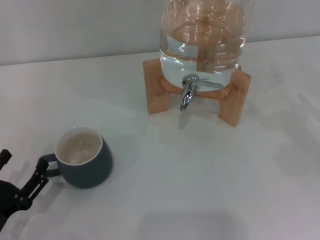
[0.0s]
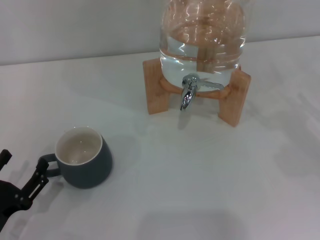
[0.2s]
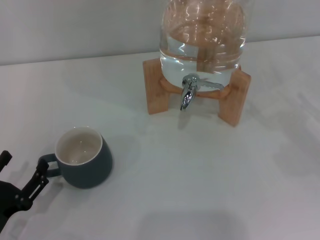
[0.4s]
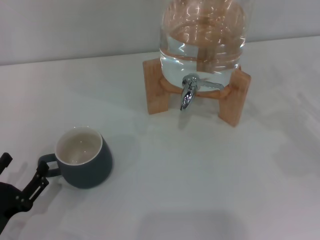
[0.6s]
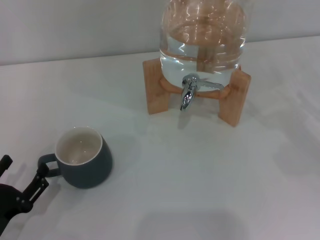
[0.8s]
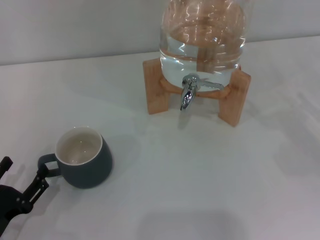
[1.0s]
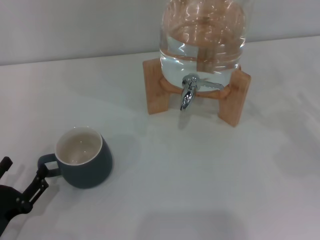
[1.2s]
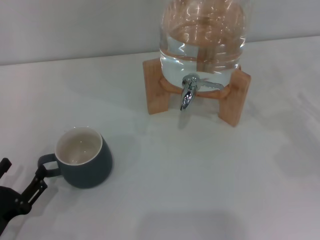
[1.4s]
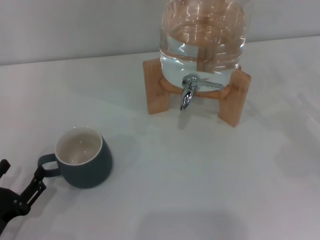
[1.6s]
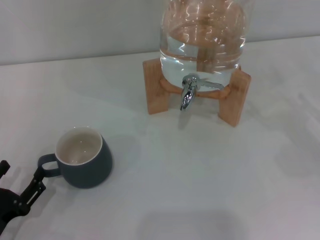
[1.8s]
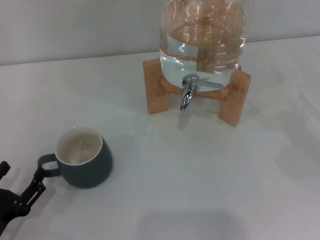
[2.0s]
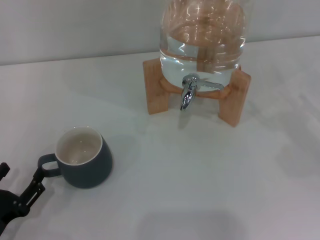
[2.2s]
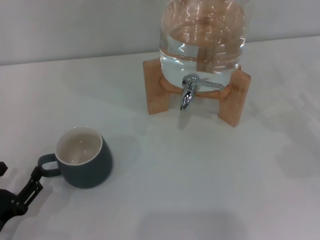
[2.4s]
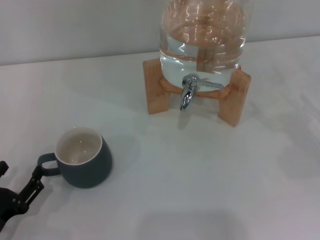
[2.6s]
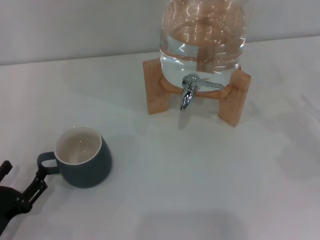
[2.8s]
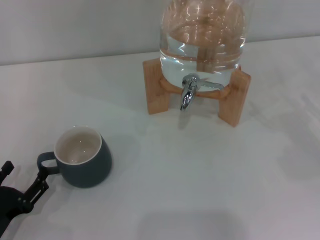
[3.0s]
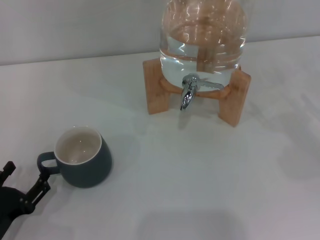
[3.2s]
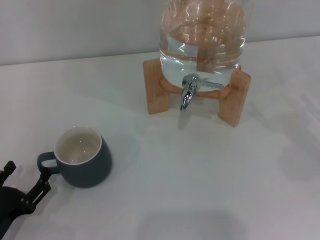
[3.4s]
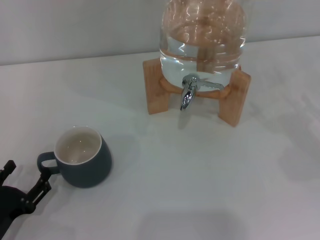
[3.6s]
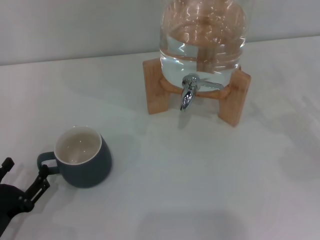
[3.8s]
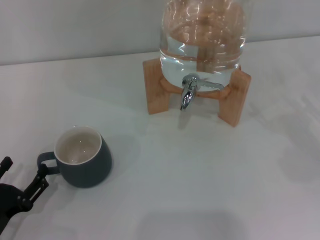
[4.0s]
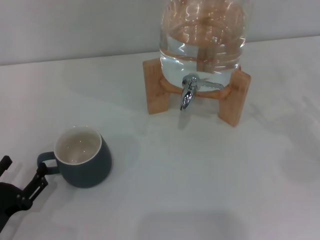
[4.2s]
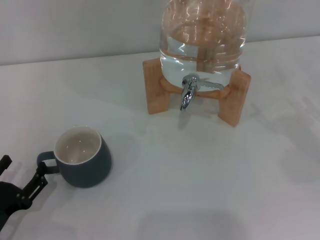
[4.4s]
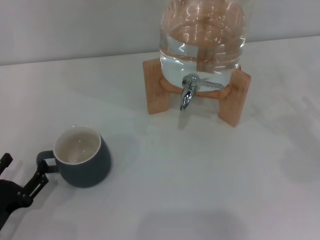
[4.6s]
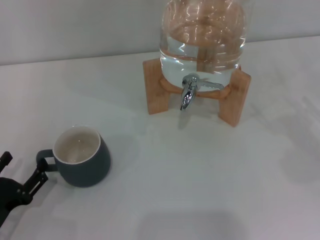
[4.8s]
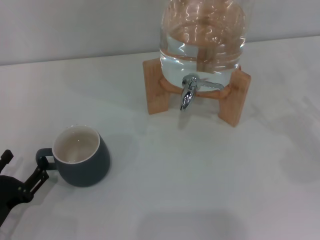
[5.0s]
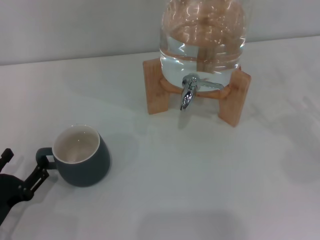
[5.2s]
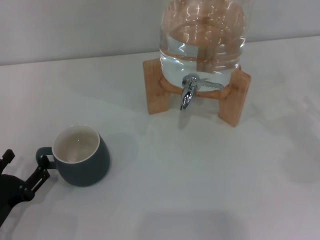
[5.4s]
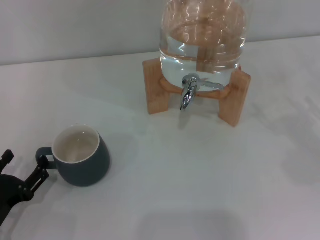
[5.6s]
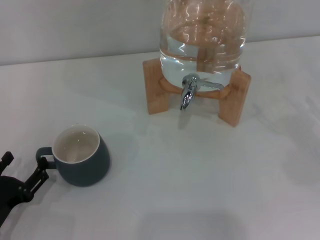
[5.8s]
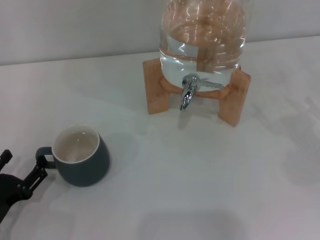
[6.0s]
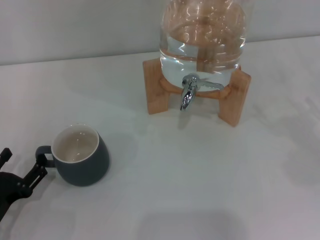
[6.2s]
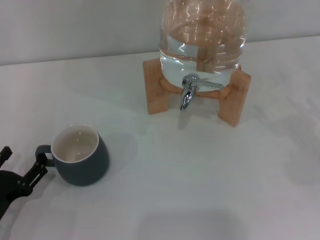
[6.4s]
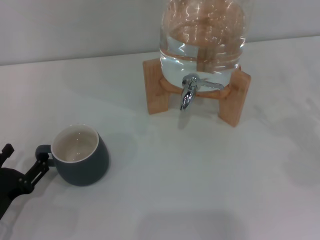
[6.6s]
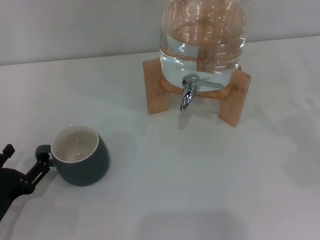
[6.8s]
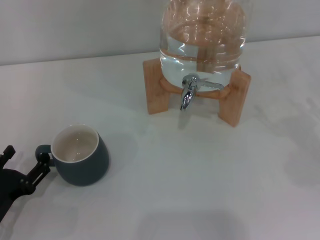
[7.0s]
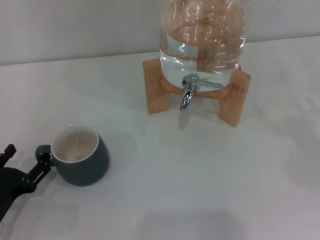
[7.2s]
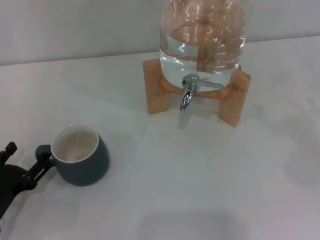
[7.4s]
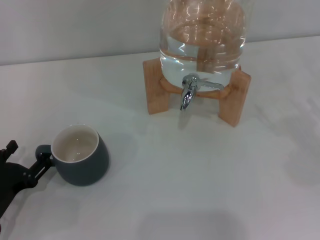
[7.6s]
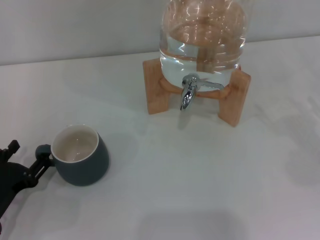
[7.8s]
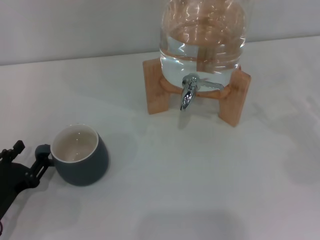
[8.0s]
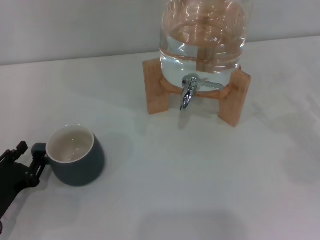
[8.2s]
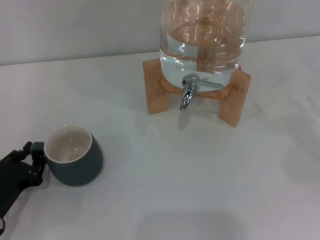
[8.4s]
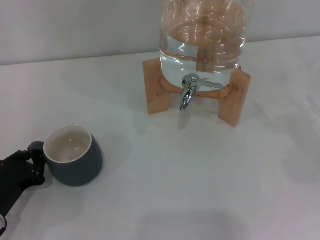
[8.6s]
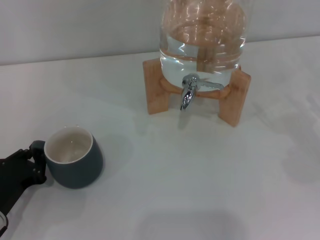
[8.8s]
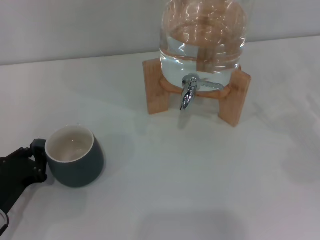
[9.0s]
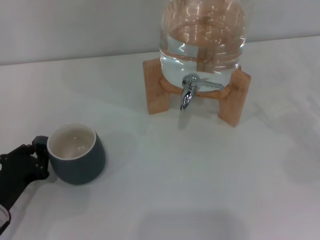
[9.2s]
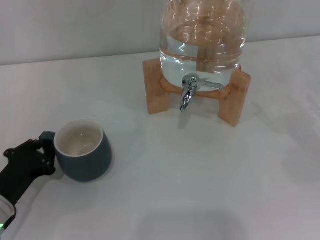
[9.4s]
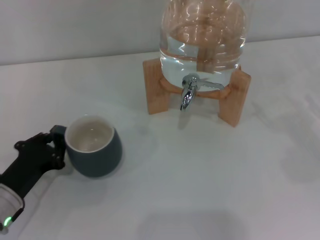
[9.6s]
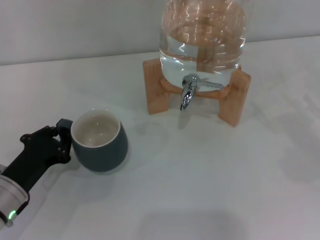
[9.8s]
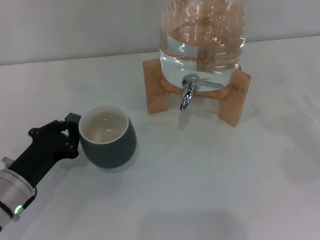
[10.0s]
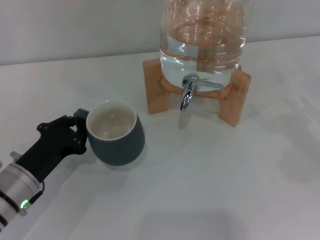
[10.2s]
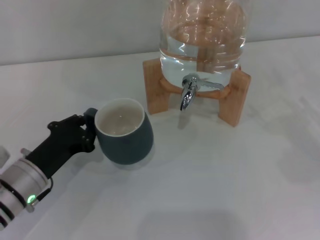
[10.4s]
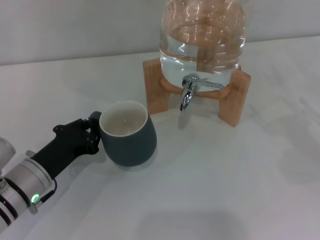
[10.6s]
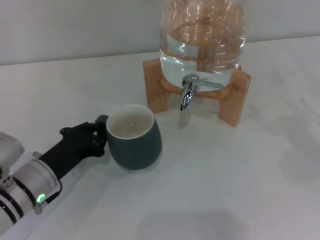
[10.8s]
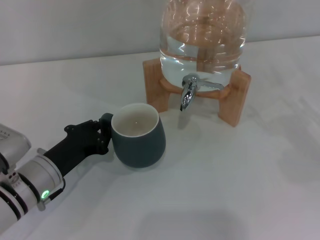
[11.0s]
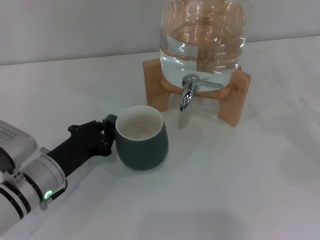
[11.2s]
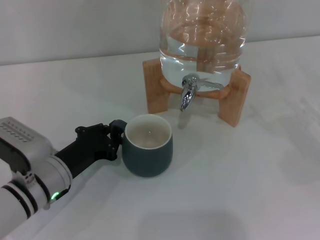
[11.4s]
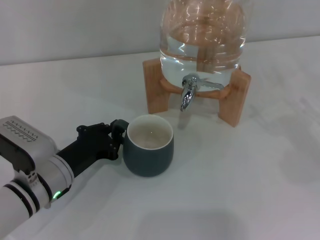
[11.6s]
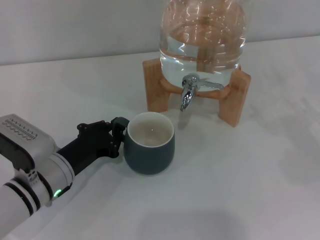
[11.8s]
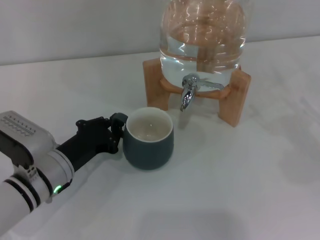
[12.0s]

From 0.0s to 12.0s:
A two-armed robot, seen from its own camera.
Task of the whole recording: the left gripper pick up the black cup and place it horizontally under the faucet, the right gripper turn on the faucet to fill the cup, and then turn off the faucet.
From 0.0s to 1.6s: The grippers make only small movements.
From 1.6s to 4.4s: Both grippers stay put.
From 4.4s to 7.6s: The grippers stay close to where they were, moving slightly.
From 7.6s to 9.0s: The left gripper closes up.
From 9.0s to 10.4s: The left gripper shifts some 5 cm to the right.
From 10.4s to 12.0s: There are only small adjustments of the grippers.

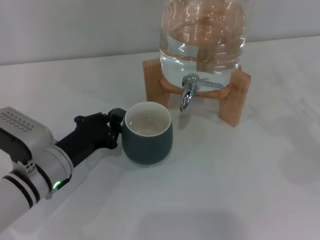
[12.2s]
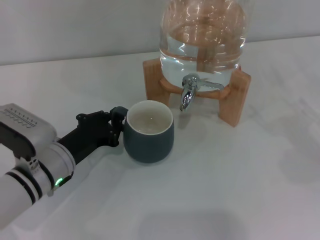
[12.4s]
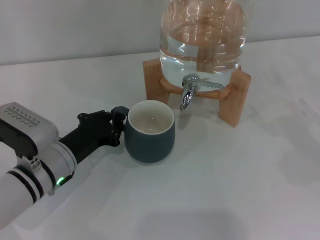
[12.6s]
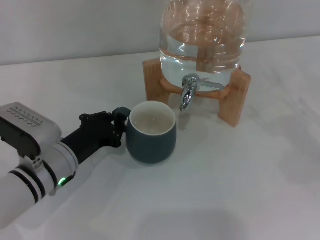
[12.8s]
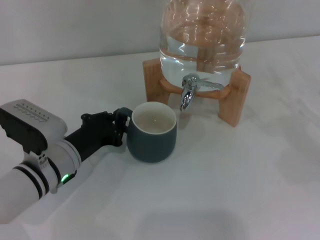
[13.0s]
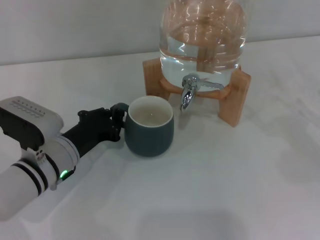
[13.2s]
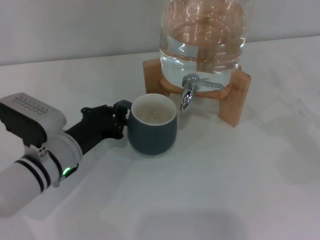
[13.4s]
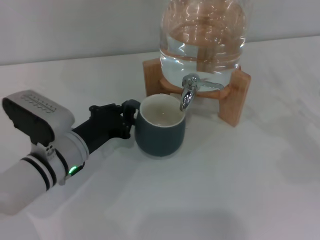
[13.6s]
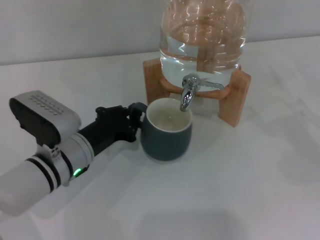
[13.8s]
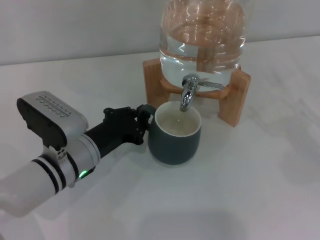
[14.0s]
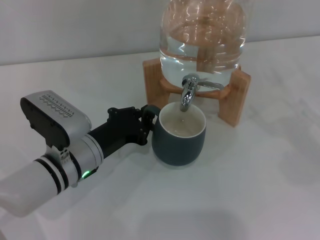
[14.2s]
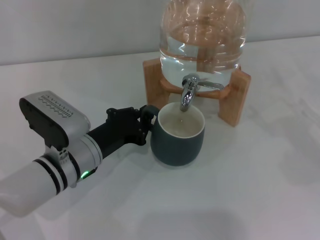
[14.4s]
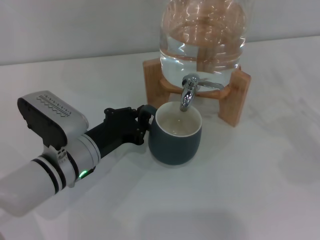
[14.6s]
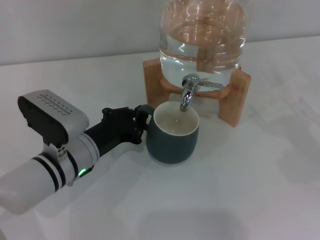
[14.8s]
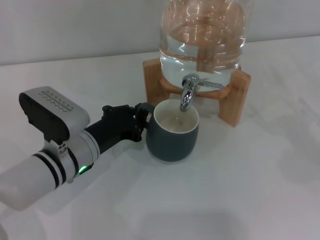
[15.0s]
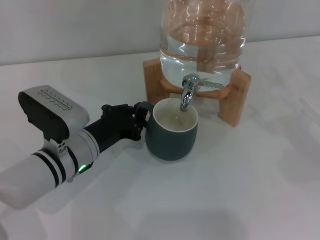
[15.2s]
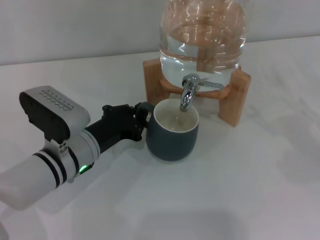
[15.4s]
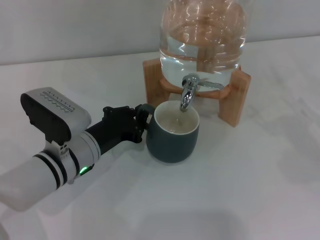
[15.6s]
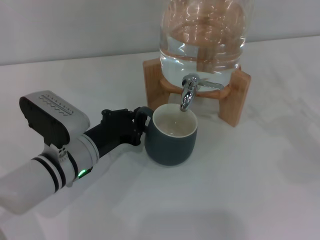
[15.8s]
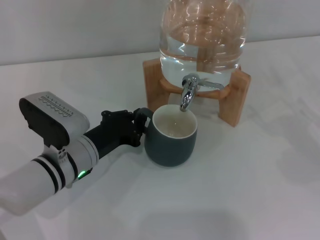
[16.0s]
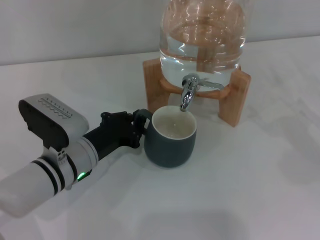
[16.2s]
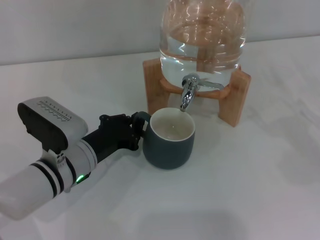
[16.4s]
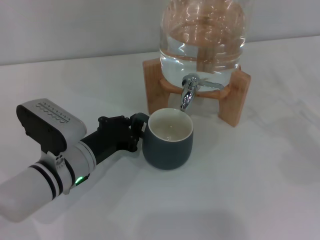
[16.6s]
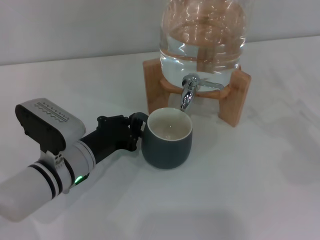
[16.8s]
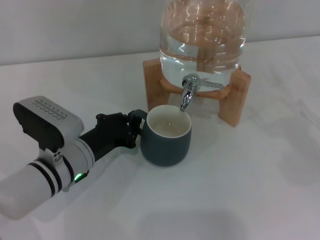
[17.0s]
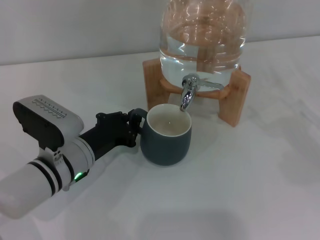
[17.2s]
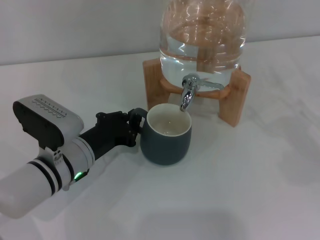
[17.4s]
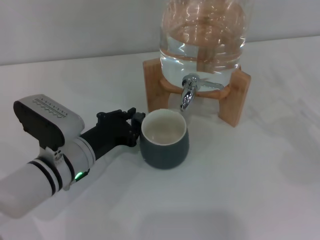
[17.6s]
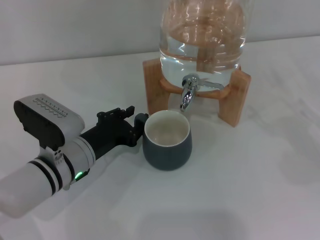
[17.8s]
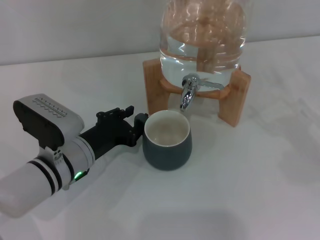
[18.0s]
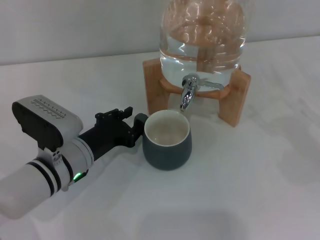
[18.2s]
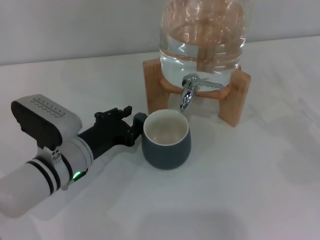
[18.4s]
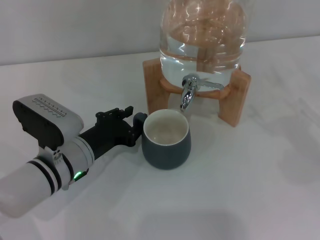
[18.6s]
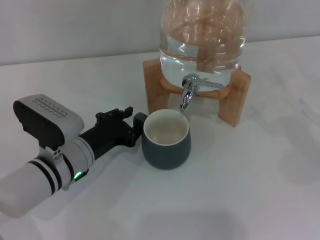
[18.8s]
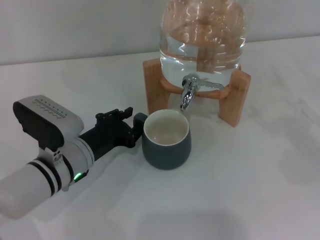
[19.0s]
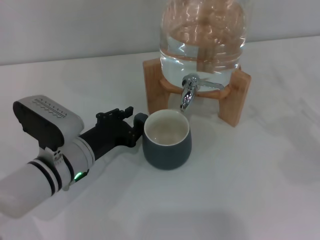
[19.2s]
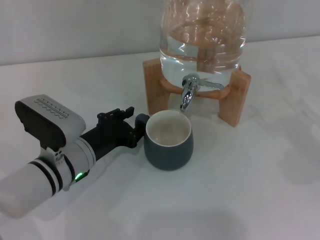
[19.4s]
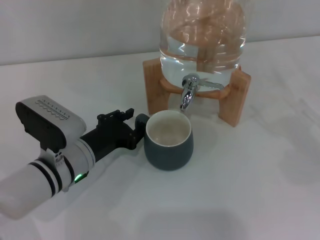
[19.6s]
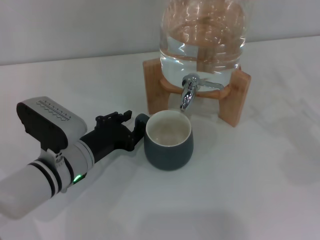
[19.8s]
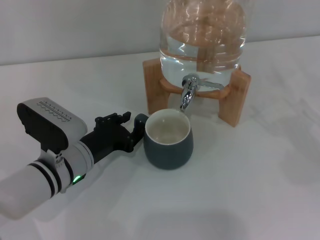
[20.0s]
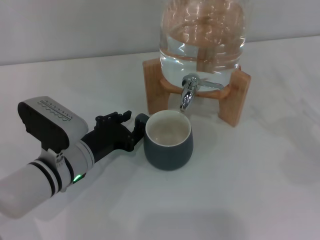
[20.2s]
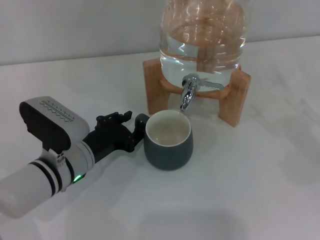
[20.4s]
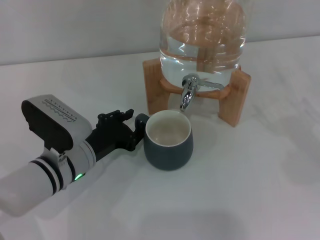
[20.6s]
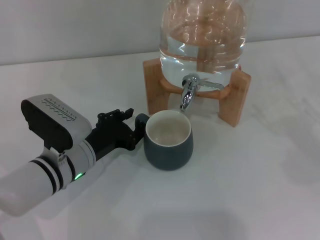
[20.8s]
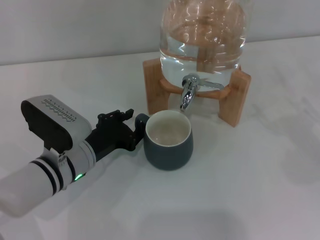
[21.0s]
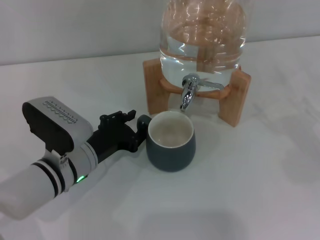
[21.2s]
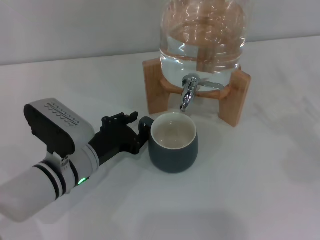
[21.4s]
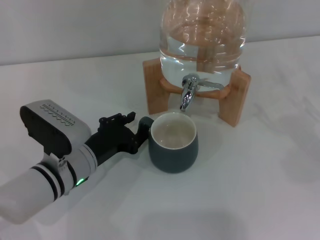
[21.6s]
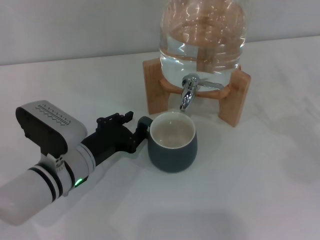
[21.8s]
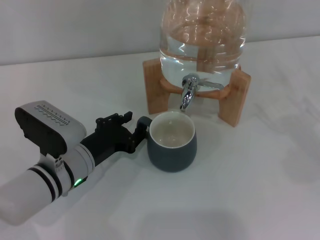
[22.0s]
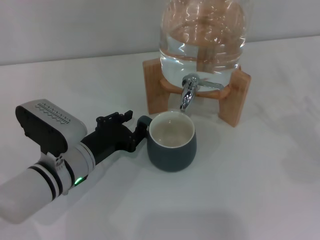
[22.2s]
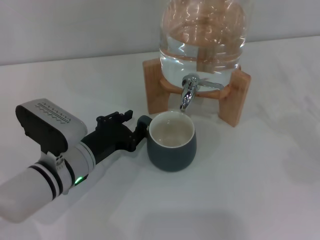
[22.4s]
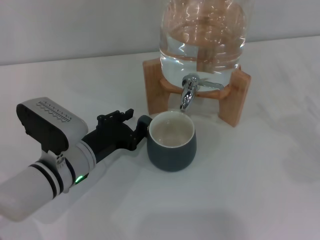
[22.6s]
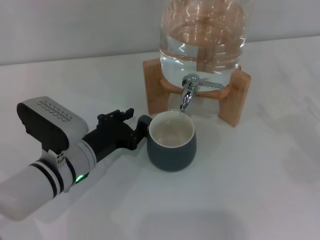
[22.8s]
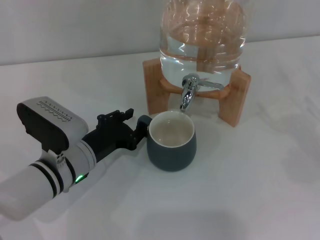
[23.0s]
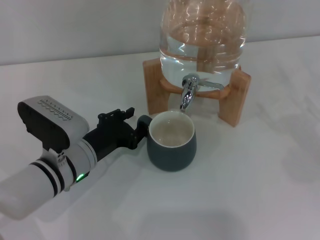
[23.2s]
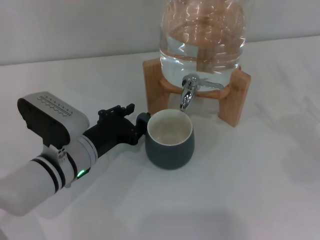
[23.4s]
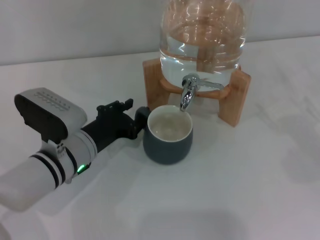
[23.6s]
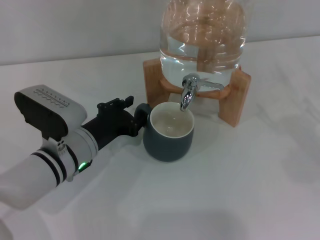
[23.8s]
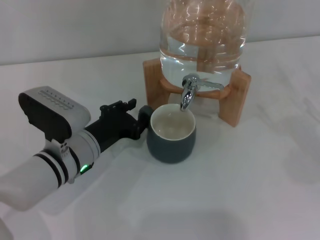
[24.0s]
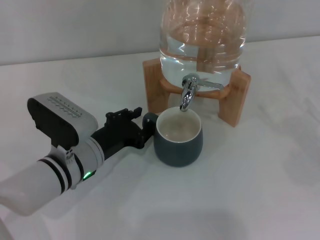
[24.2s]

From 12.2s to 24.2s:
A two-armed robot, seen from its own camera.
Task of the whole recording: the left gripper pick up the black cup and place it horizontally under the faucet, the right gripper turn on the faucet to fill the cup, and then turn off the faucet.
From 12.2s to 16.6s: The grippers stay close to where they were, moving slightly.
From 16.6s to 18.2s: The left gripper opens up.
From 18.2s to 19.8s: Neither gripper changes place.
From 19.8s to 22.6s: The two grippers keep their place.
From 22.6s to 24.2s: The grippers move only a little.
